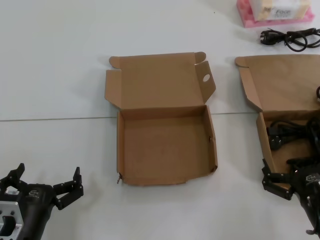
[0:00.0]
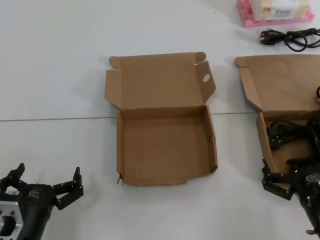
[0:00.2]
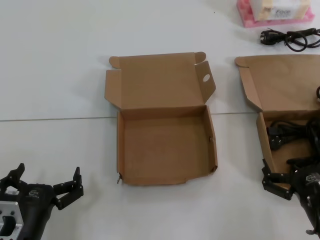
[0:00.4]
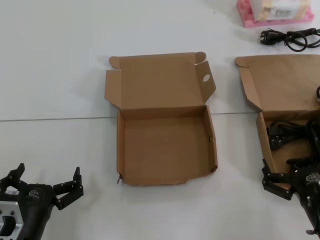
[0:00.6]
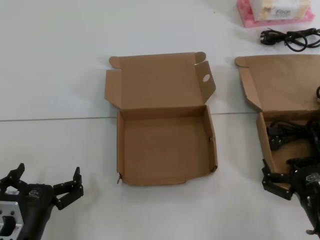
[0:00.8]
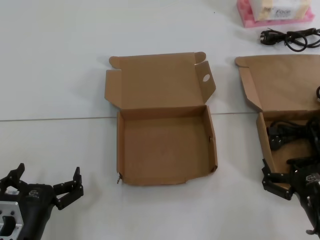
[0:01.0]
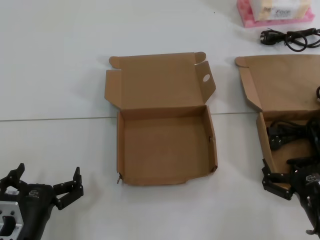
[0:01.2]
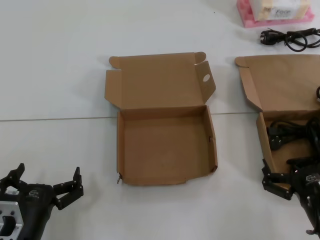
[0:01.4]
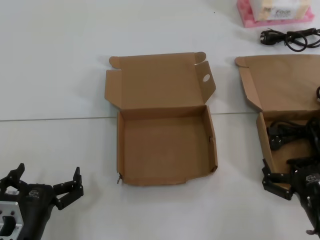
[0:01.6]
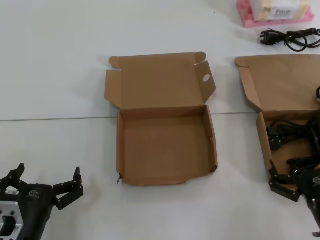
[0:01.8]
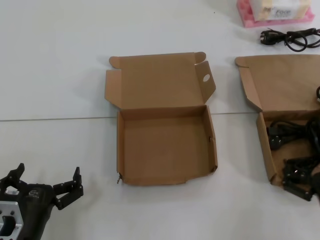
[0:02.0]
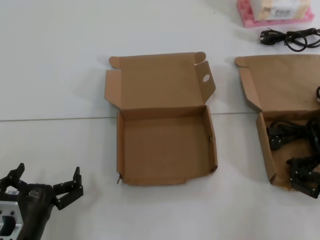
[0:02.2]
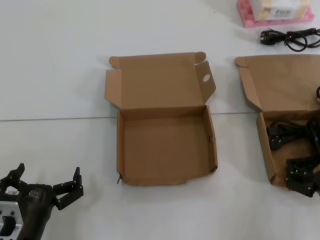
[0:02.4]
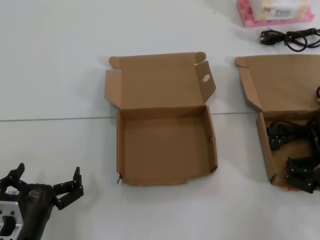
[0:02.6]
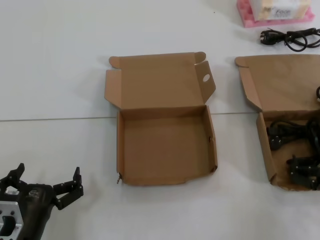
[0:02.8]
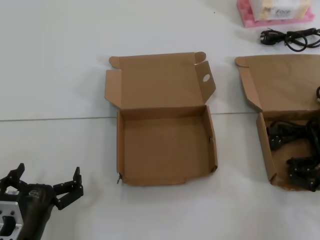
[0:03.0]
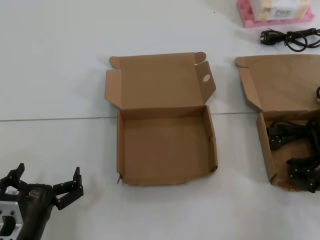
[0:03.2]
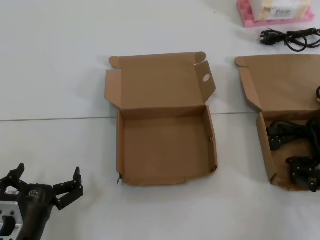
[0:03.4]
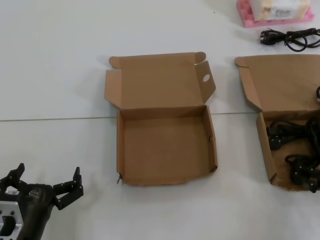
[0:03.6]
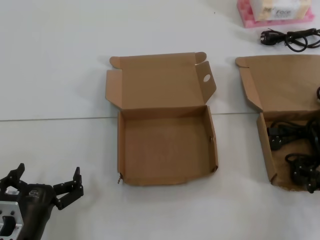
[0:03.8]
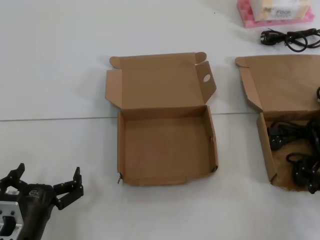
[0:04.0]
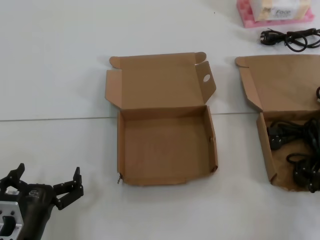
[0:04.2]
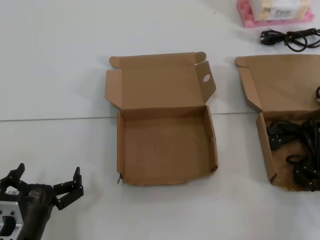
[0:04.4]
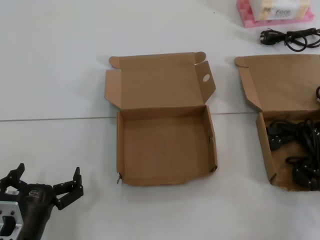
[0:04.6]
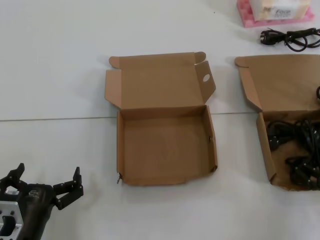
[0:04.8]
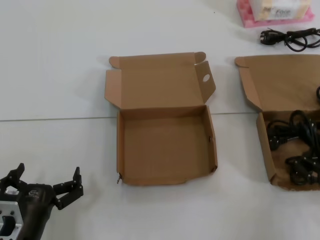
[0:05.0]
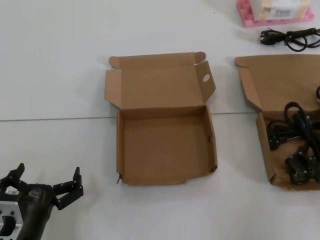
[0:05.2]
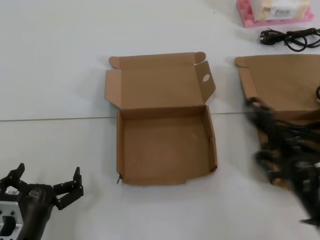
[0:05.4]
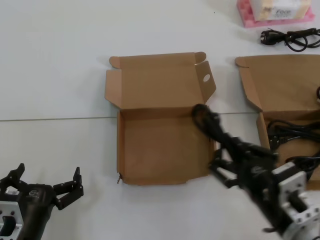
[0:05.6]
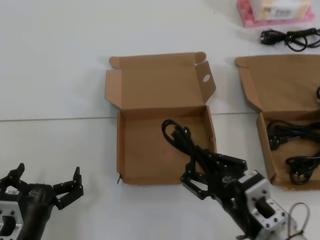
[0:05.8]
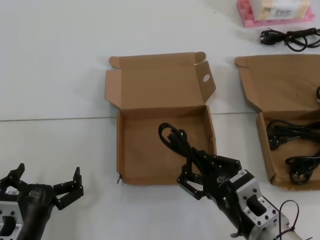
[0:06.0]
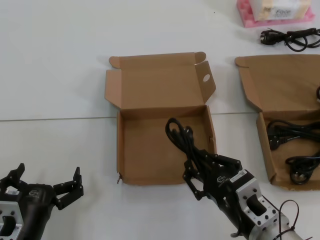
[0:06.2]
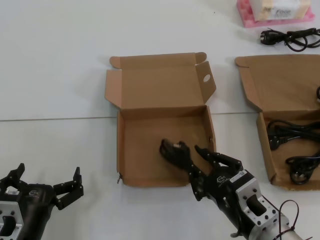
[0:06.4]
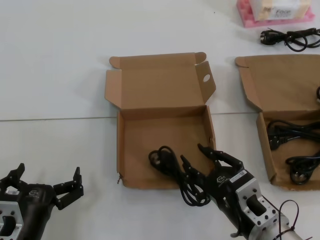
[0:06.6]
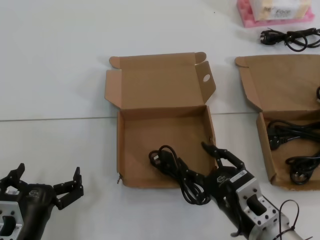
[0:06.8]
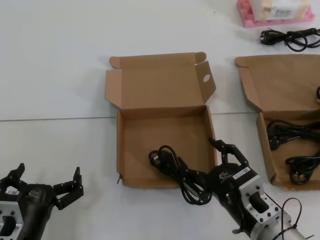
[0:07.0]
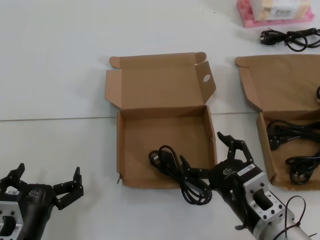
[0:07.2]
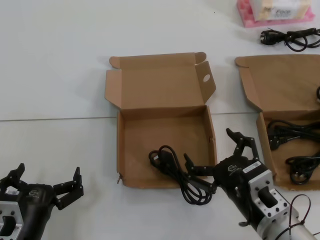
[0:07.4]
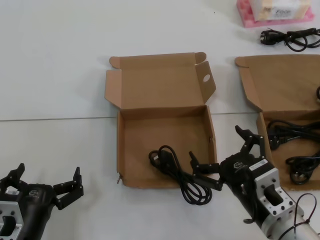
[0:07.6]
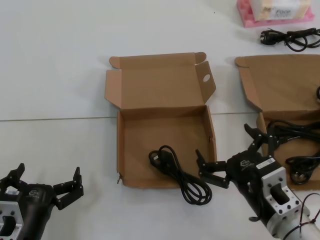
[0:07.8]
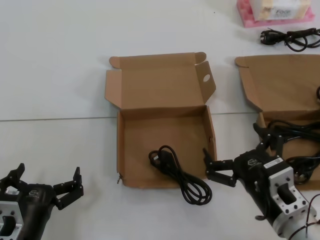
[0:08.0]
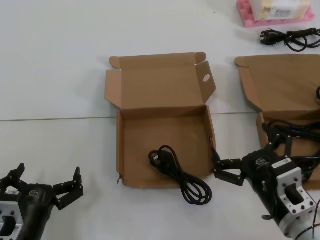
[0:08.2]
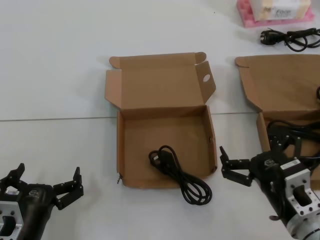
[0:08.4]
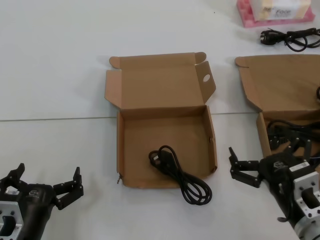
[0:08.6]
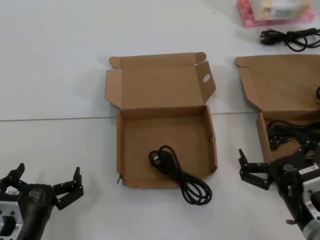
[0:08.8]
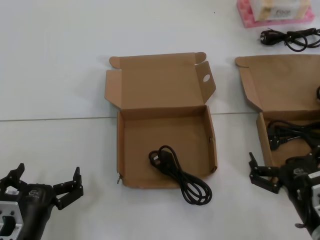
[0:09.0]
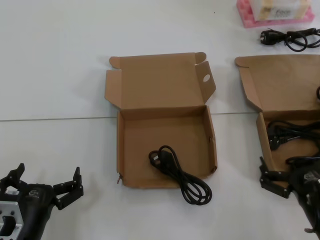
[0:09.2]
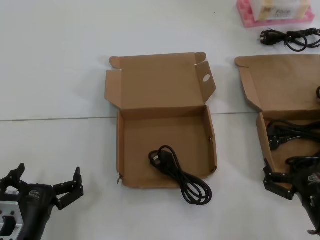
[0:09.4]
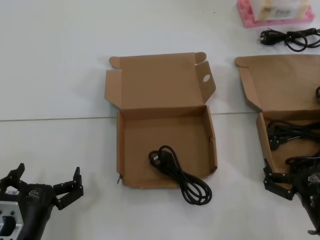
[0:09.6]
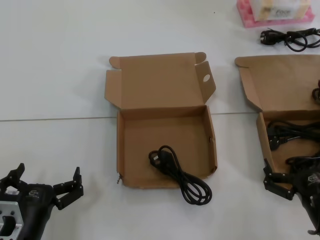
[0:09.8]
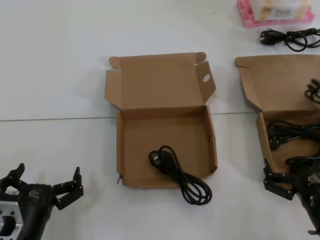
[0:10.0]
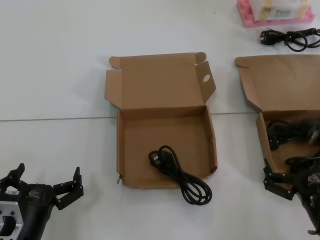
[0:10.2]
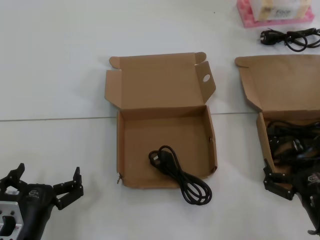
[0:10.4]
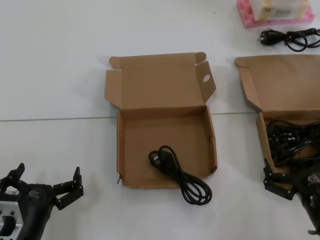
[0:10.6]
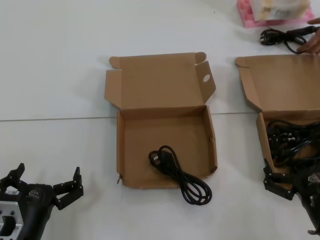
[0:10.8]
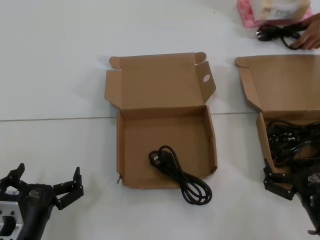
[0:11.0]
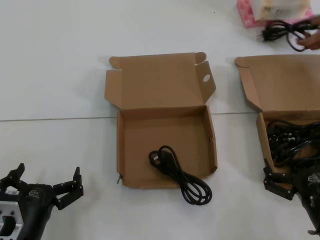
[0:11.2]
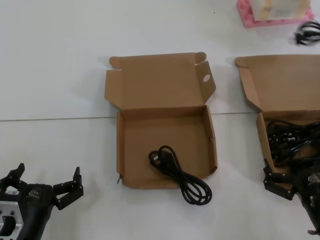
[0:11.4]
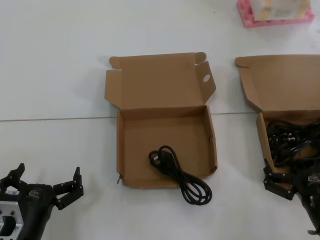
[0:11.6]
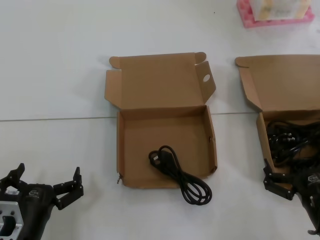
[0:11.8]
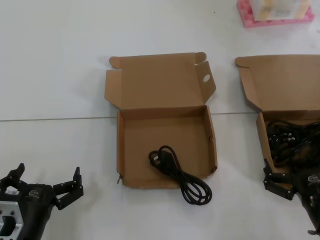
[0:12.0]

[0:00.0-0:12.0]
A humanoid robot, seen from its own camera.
Task of the whole recording: take the parts from the box containing them and put them into an empty box.
Step, 0:00.0 to 0:04.4: Grasp the data cable.
Step, 0:04.8 to 0:06.4: Place the data cable in the another box.
0:00.0 to 0:01.6: The two hands keep their place.
0:01.6 to 0:03.0: The right hand ends up some 5 cm from where it was.
0:04.4 to 0:06.0: The right hand is displaced to the left by approximately 15 cm.
0:06.0 to 0:07.6: There are only small adjustments of the hands.
0:07.6 to 0:09.0: The right hand shifts about 5 cm to the right.
0:09.0 to 0:10.4: The hands stay close to where they were, moving slightly.
0:10.4 to 0:12.0: Neither hand changes place.

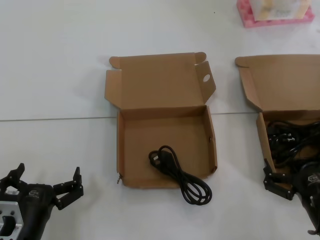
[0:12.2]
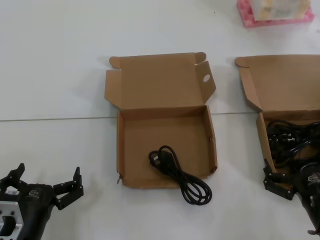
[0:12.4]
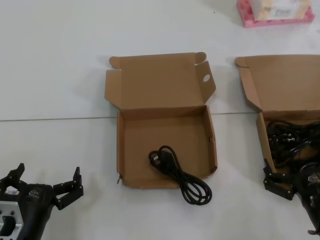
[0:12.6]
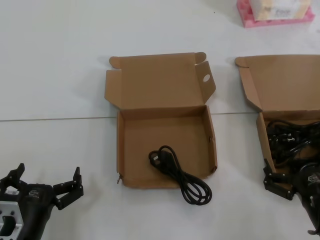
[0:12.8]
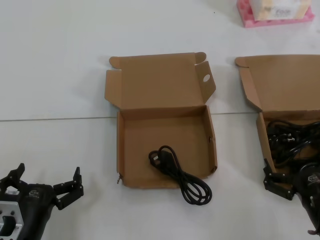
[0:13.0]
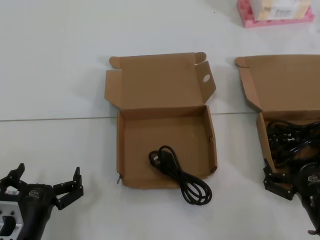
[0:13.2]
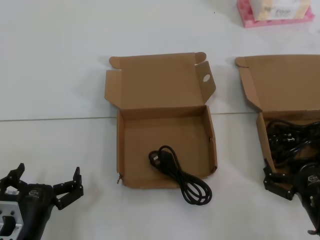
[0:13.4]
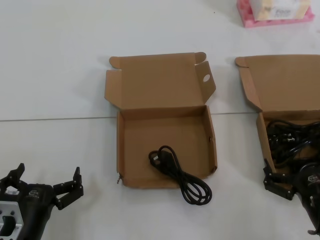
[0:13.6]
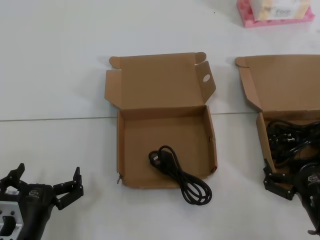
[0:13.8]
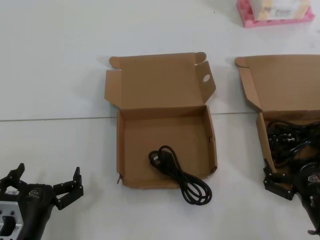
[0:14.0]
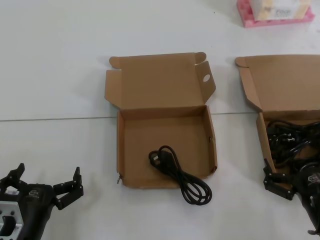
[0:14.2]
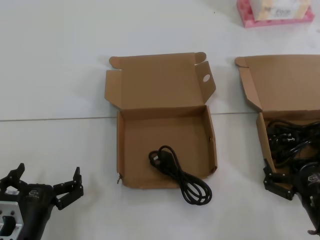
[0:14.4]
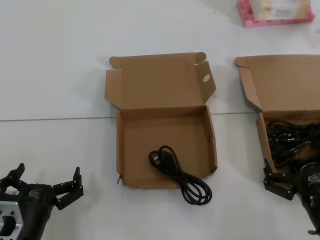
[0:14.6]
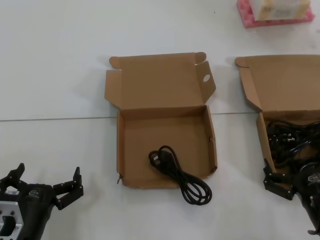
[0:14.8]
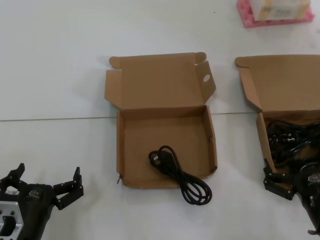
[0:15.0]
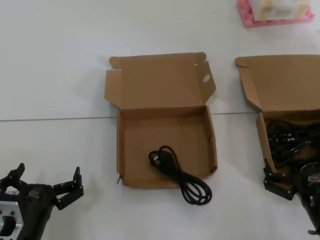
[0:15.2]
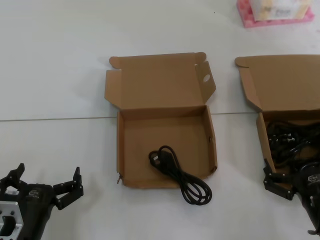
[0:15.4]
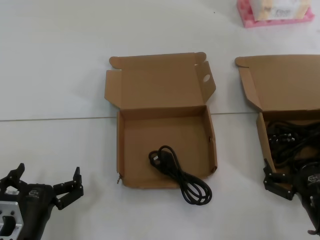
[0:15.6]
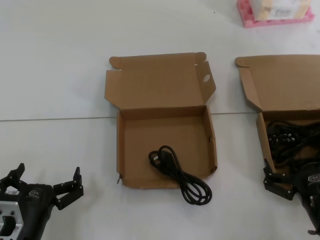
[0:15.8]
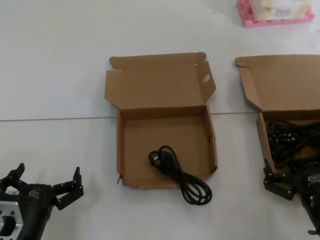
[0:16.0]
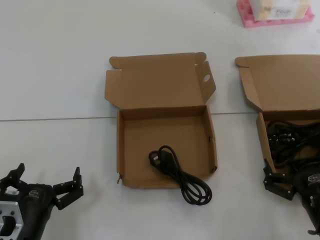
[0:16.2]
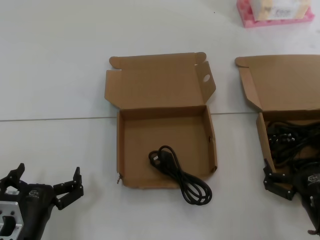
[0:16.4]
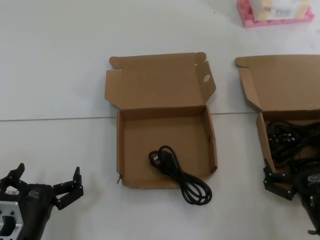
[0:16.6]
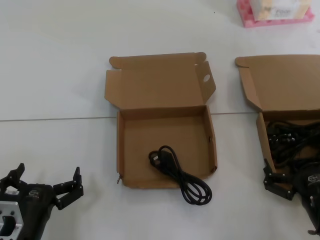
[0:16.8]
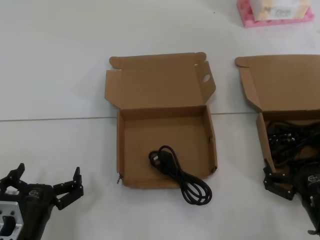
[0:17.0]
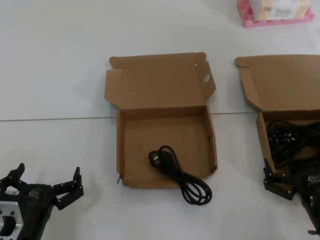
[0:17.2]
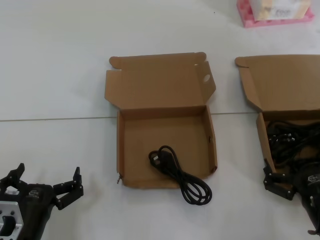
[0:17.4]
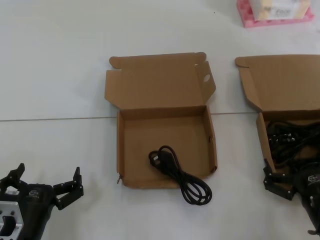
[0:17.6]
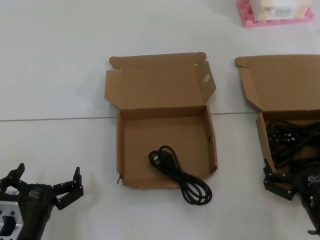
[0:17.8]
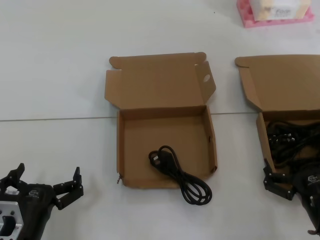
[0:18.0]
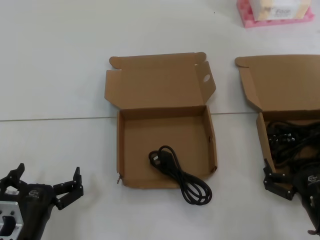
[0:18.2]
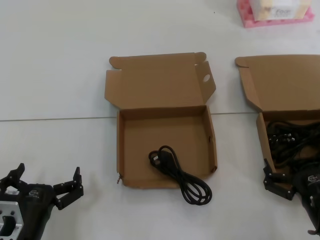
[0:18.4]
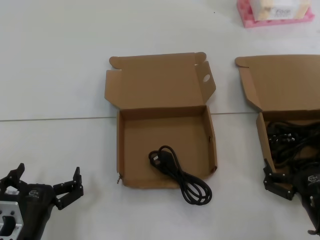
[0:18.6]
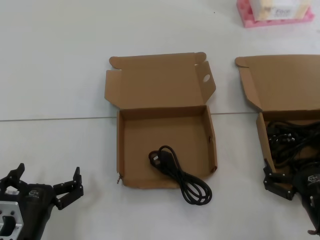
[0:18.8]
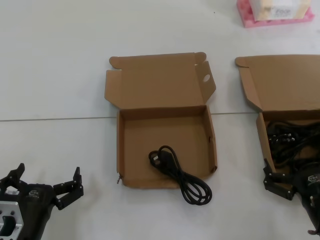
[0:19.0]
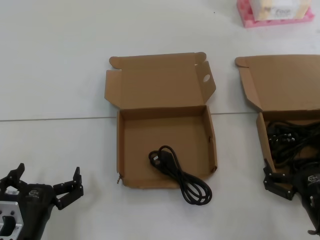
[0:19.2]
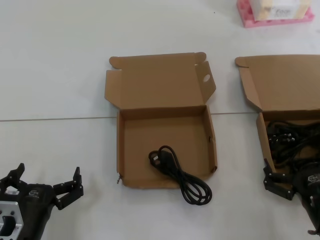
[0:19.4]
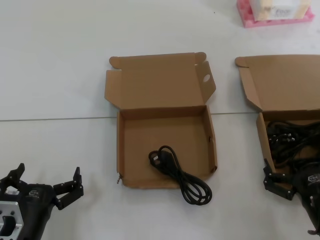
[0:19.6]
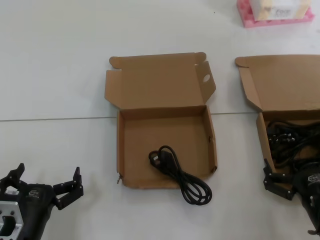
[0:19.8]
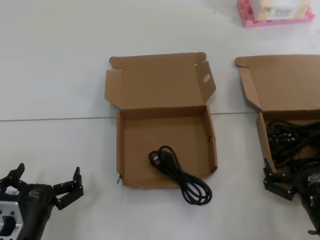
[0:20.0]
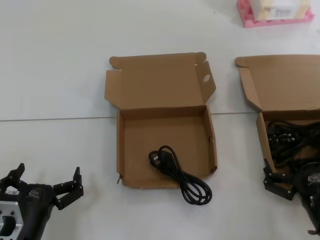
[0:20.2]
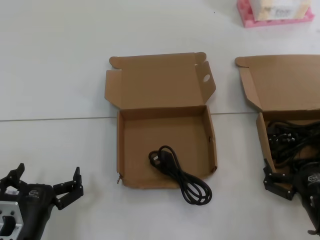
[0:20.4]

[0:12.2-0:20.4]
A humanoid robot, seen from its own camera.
Task of the whole recording: take the parts from the box containing them and put them into an empty box.
0:12.2 to 0:20.4: The two hands keep their place.

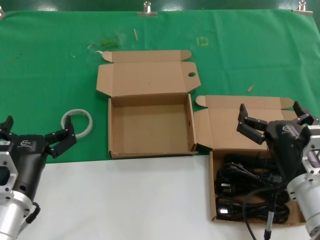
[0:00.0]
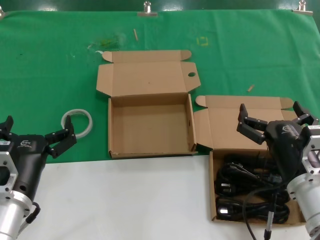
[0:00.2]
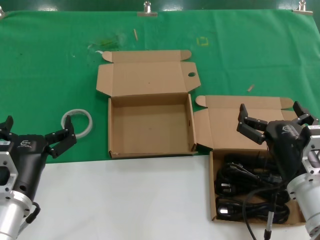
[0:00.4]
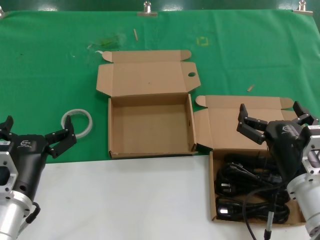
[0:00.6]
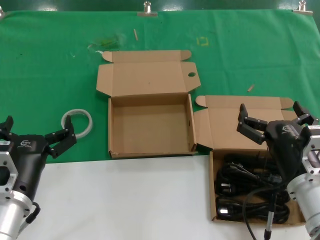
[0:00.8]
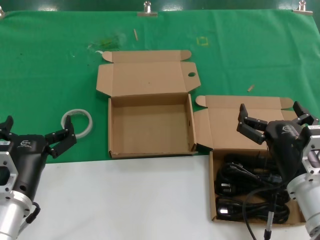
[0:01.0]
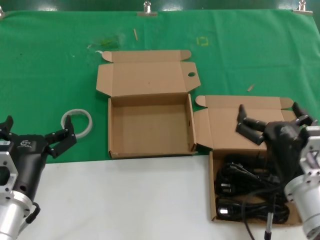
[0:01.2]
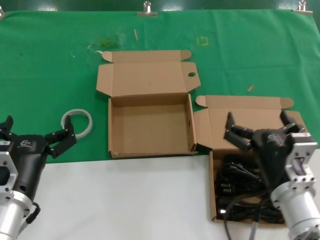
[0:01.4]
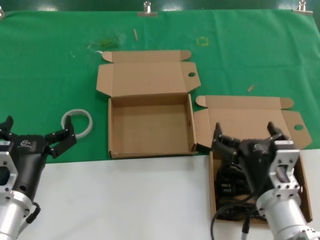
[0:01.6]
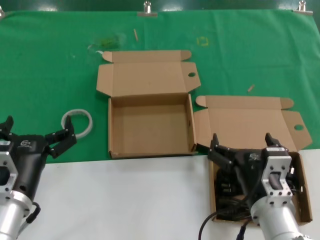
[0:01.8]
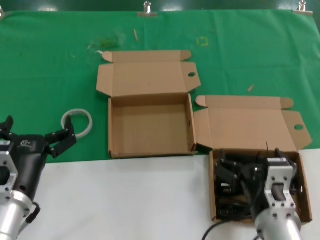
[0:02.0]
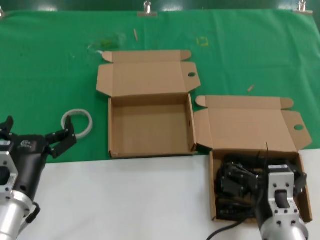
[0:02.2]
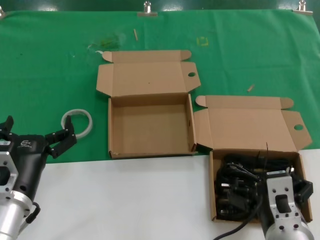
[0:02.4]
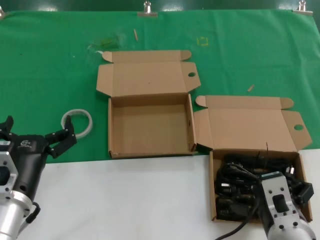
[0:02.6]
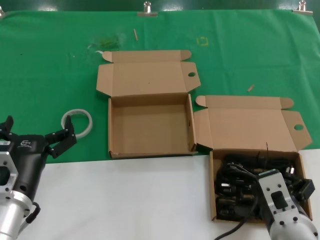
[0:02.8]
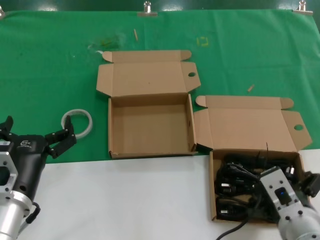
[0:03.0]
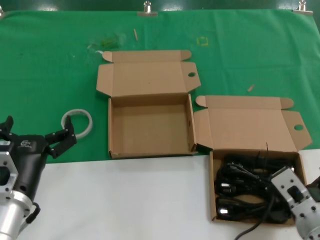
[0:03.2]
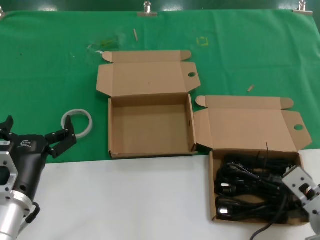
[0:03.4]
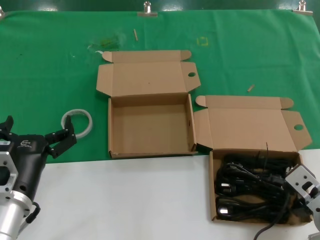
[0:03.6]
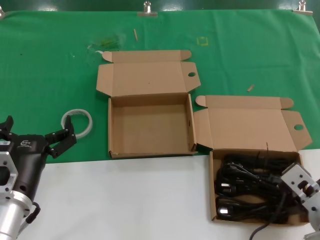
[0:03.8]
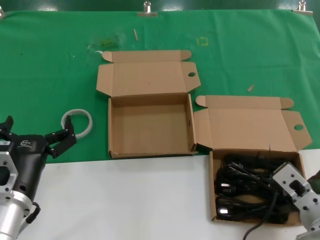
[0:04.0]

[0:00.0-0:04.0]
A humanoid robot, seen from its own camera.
Task of the whole recording: take the parts from the box containing them and put them into an empty box.
0:00.0 to 0:01.4: The hands move only a little.
0:01.4 to 0:02.6: The right hand moves backward, roughly 5 cm.
0:02.6 to 0:04.0: The right hand is displaced to the right by roughly 5 cm.
